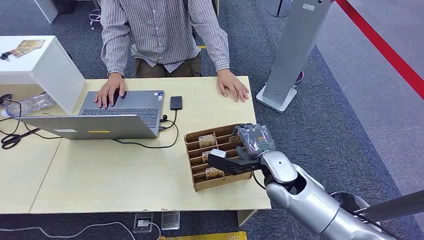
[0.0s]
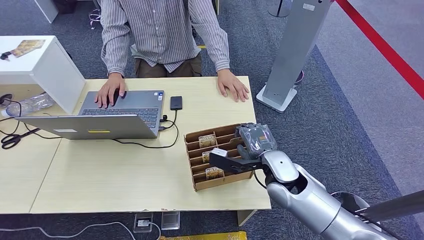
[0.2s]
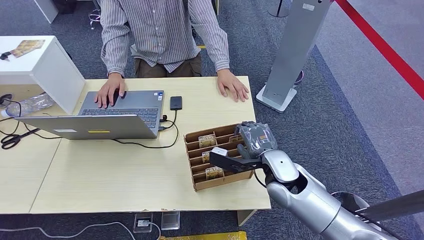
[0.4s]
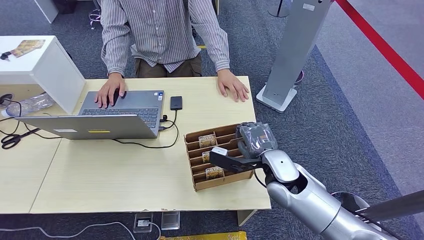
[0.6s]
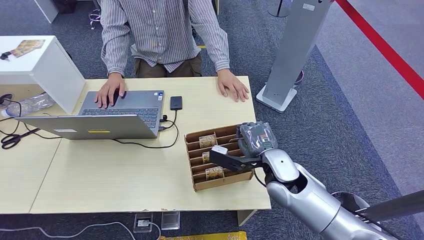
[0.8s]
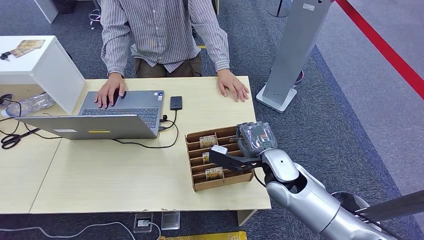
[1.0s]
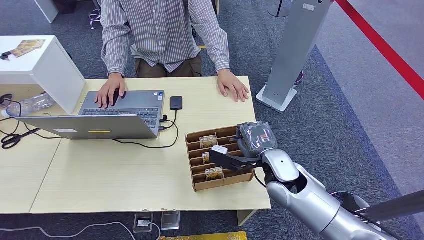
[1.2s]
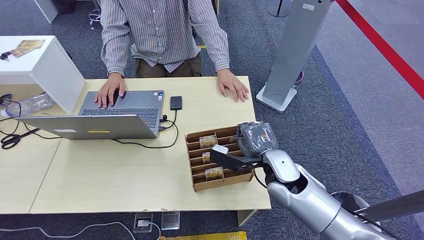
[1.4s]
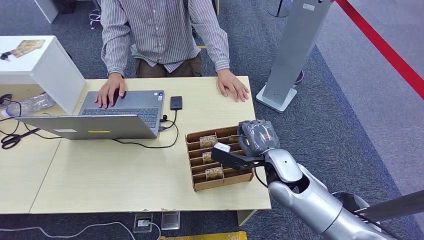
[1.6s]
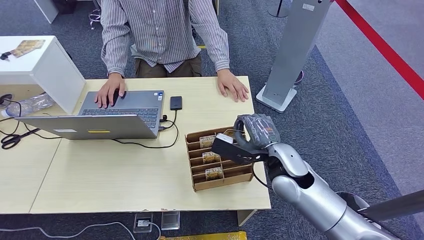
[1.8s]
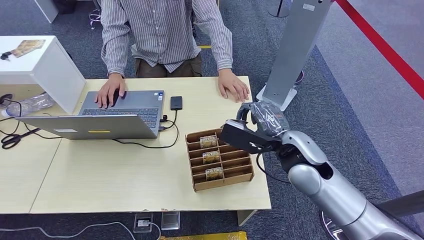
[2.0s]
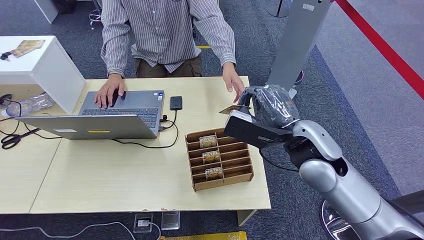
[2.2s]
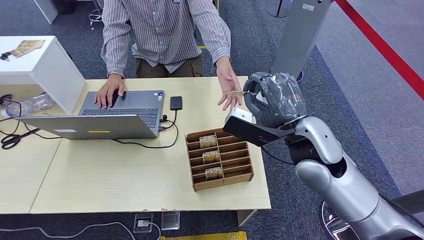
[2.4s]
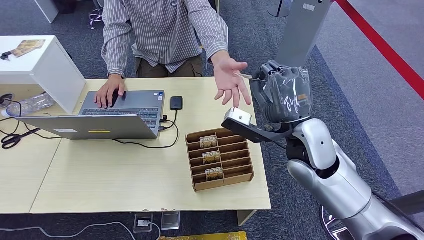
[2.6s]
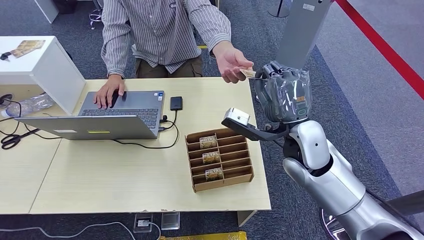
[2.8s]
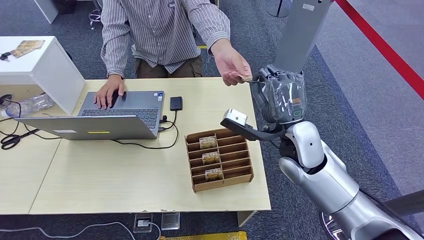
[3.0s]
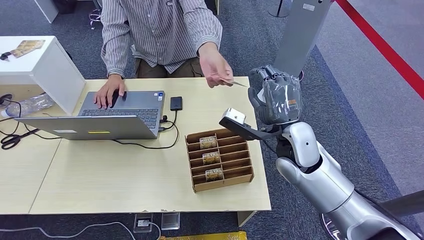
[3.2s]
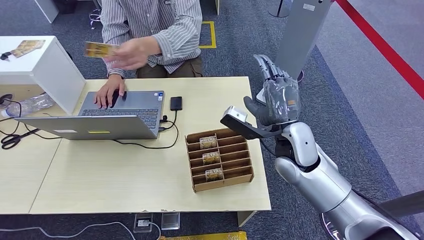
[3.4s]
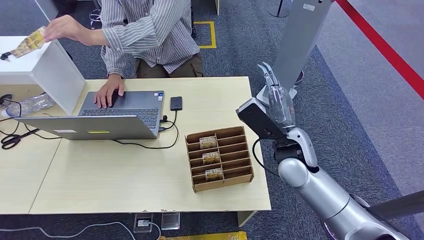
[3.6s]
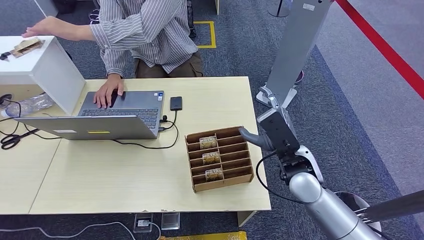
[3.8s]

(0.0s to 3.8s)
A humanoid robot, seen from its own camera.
Step, 0.0s - 2.0s: Pick up the key card from the card box.
Step, 3.0s - 3.8s: Hand the key card to the target.
1.2s - 2.6s: The right hand is displaced upward by some 10 cm.

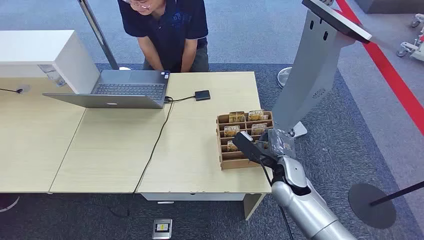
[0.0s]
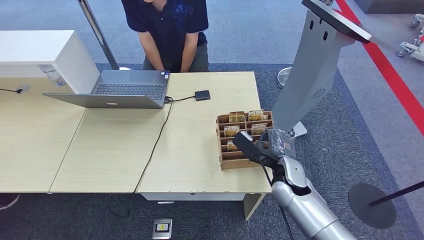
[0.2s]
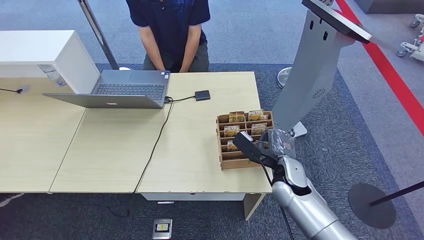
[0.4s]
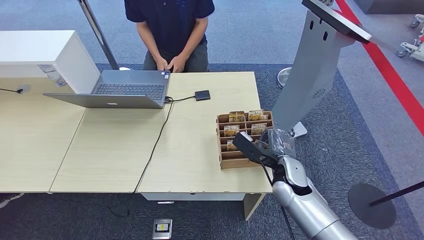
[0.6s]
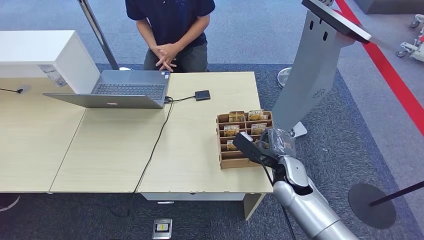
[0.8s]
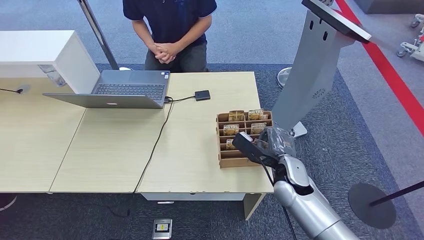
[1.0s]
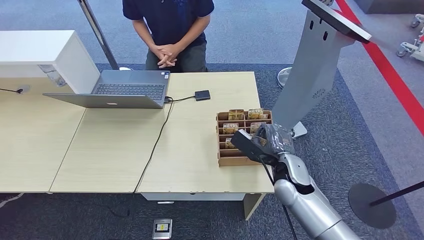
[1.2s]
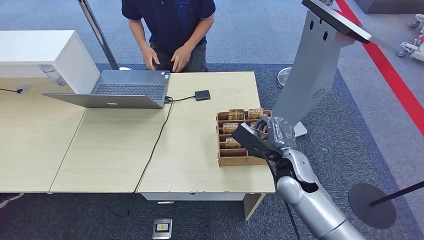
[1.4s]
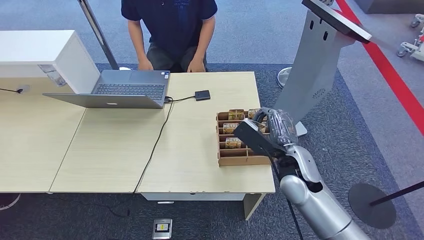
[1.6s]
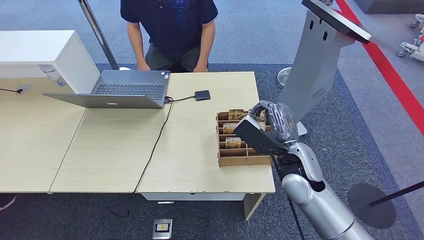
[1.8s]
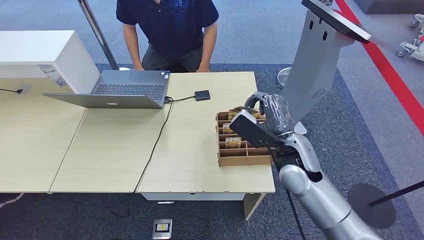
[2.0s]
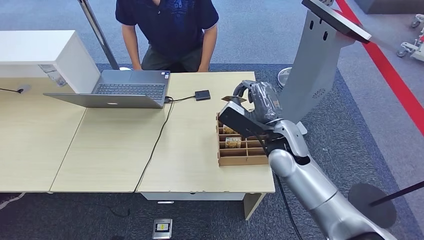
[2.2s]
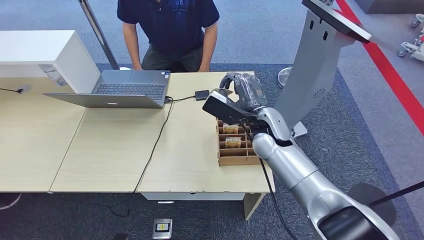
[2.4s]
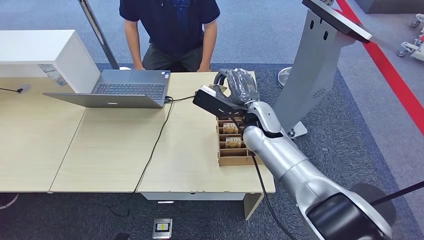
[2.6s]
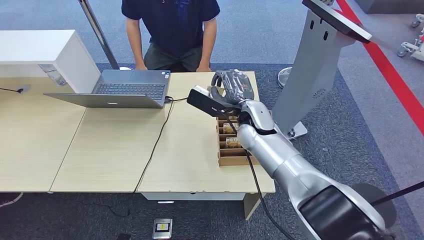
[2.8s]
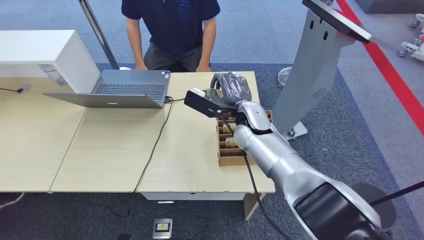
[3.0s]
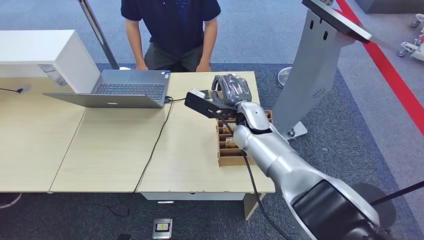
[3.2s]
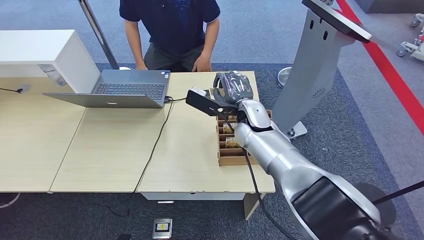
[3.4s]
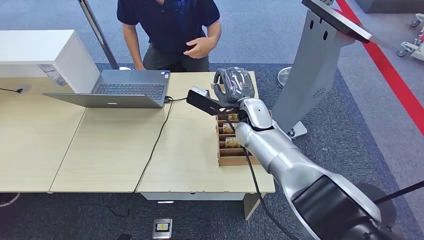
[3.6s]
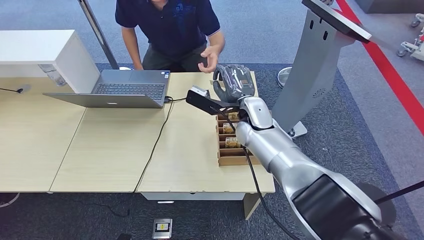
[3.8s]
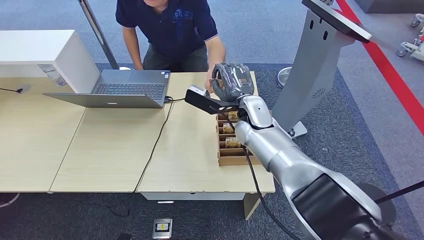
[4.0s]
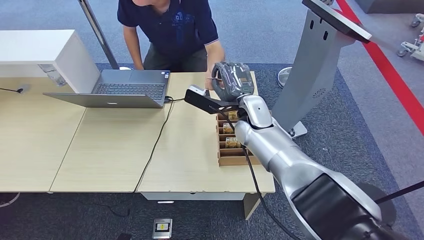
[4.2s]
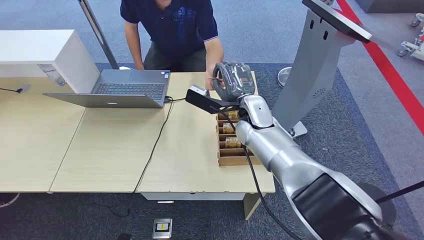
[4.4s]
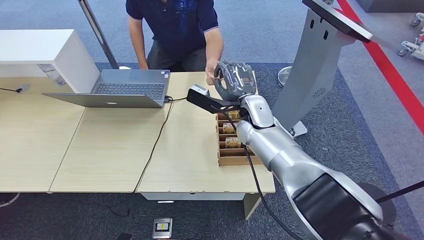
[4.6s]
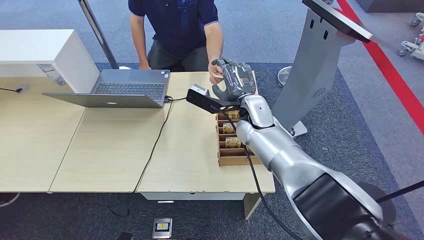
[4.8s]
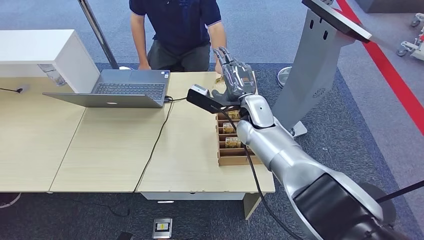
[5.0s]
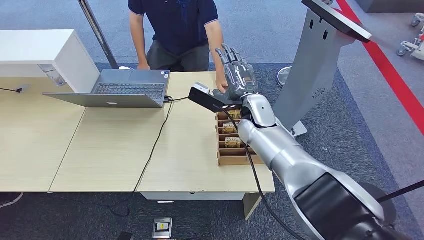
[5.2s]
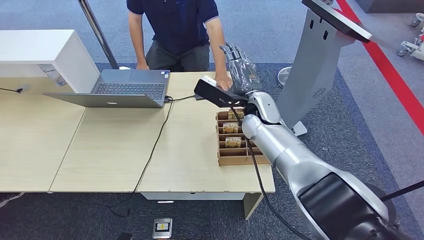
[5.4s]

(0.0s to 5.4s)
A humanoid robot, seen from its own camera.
Step, 0.0s - 2.2s: Pick up the key card from the card box.
Step, 2.4s - 5.4s: Hand the key card to the target.
1.4s - 2.8s: The right hand travels forward, to the left and upward by roughly 15 cm.
2.8s - 5.4s: The hands make only small movements.
